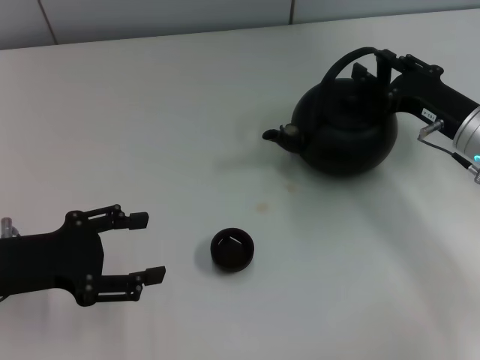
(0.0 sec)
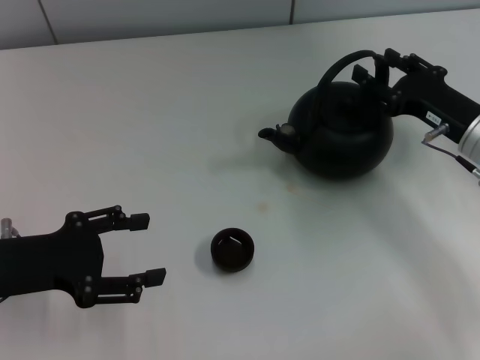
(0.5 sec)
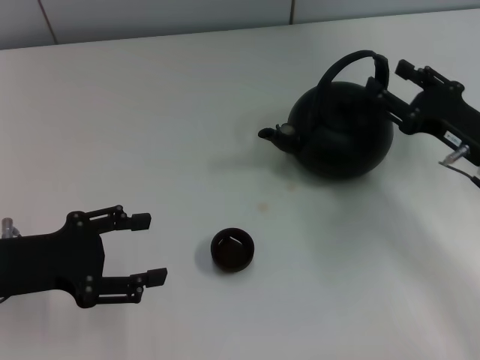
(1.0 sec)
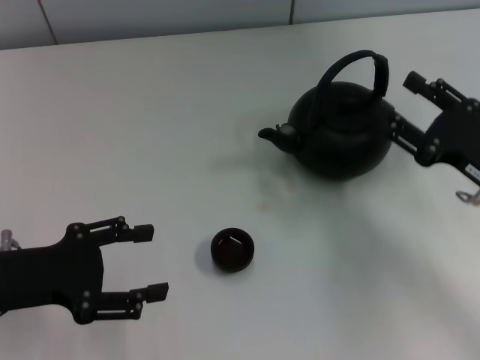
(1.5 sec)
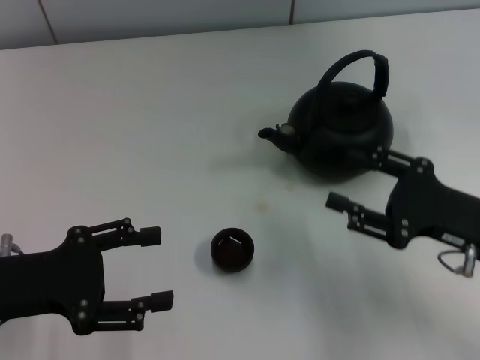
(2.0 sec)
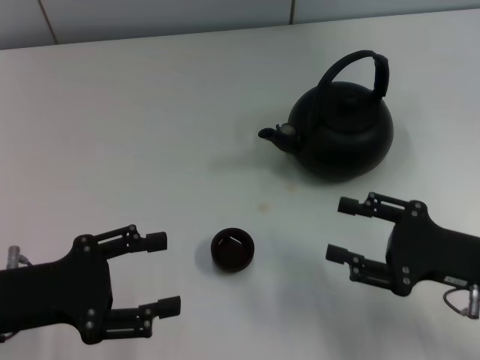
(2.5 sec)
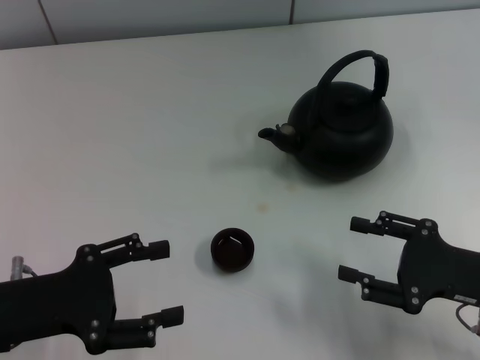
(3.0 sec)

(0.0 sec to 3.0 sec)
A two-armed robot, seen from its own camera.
Task of the whole recording: Grasp the handle of the teapot with one hand and pour tea into the teacup.
0.0 sec - 1.5 sec: The right gripper moves backward, about 10 cm.
1.5 sec - 3.0 sec: The right gripper shifts roughly 5 cm backward.

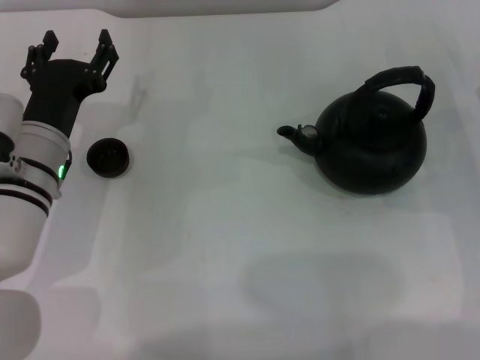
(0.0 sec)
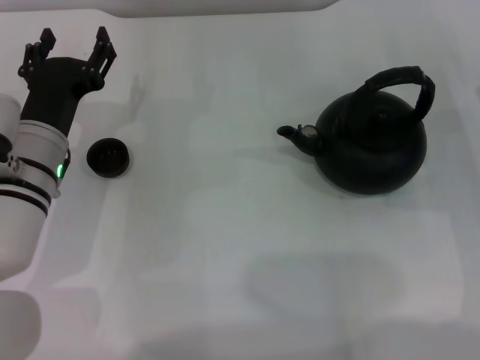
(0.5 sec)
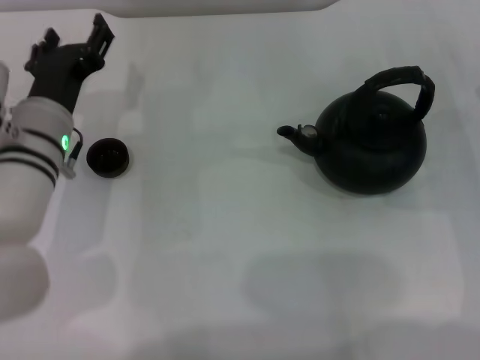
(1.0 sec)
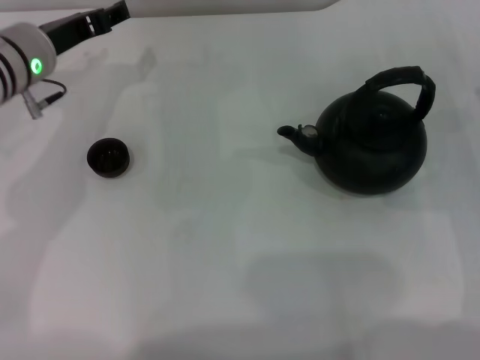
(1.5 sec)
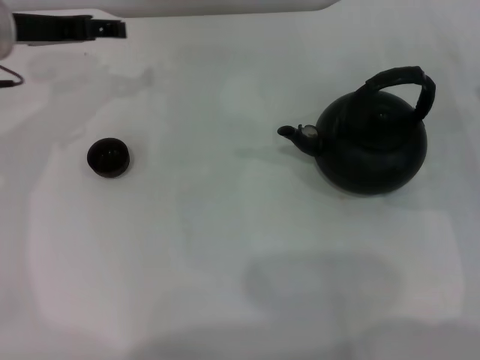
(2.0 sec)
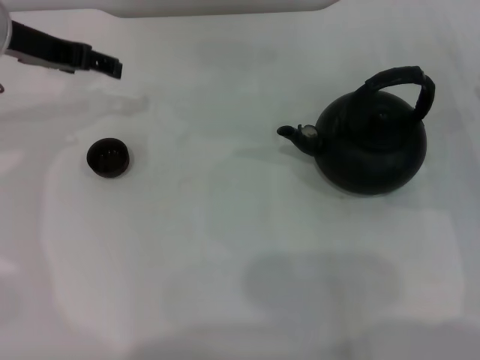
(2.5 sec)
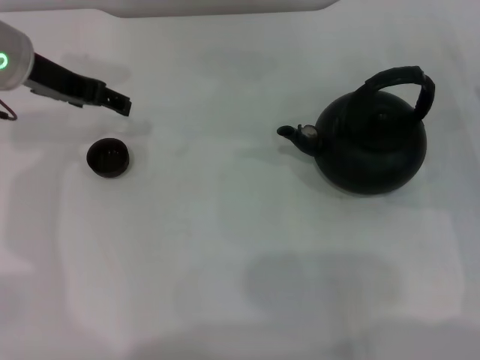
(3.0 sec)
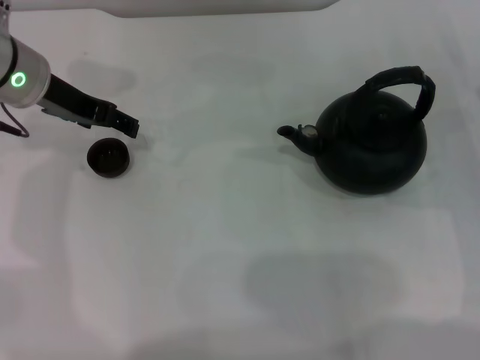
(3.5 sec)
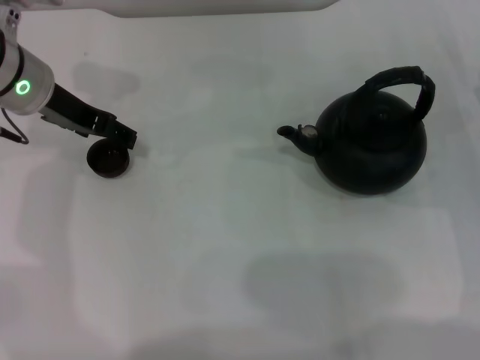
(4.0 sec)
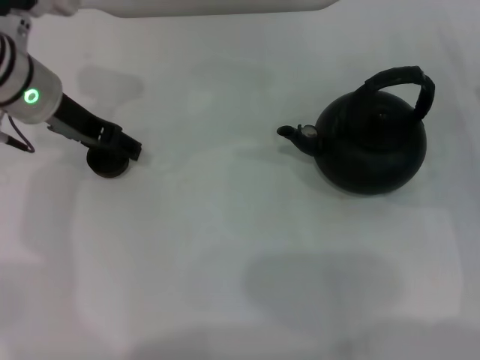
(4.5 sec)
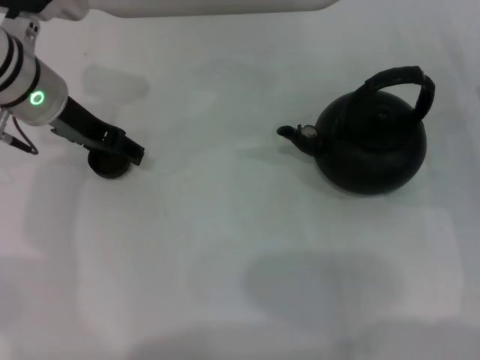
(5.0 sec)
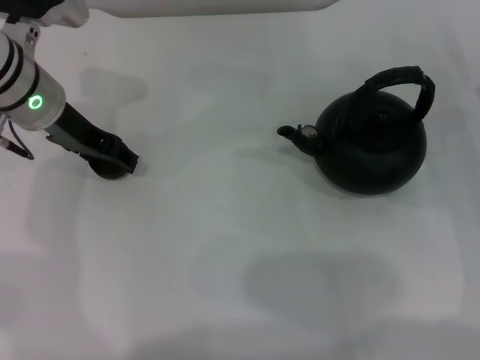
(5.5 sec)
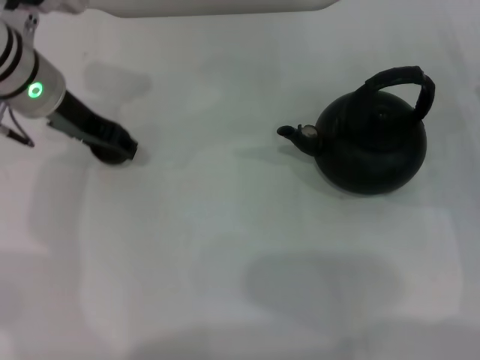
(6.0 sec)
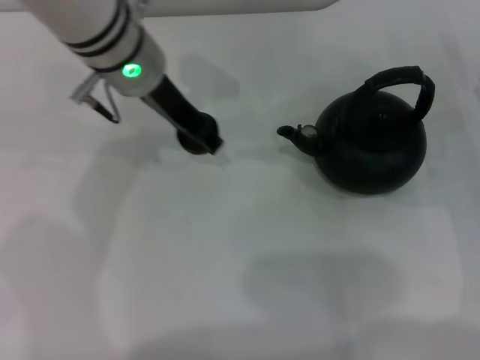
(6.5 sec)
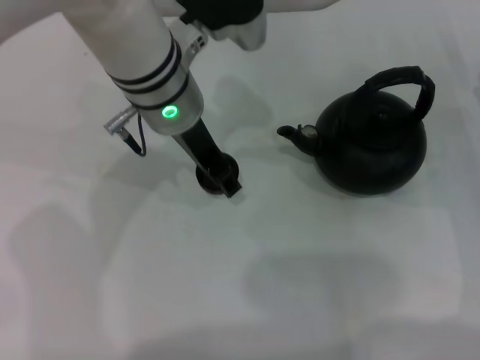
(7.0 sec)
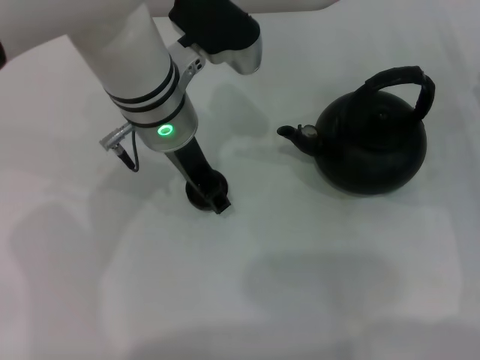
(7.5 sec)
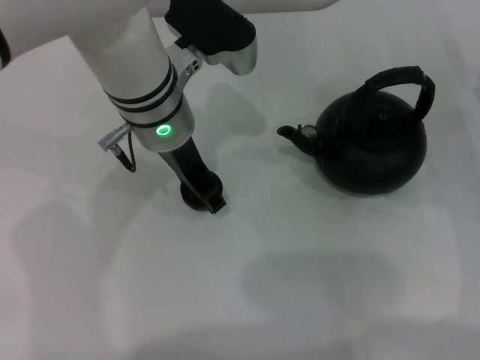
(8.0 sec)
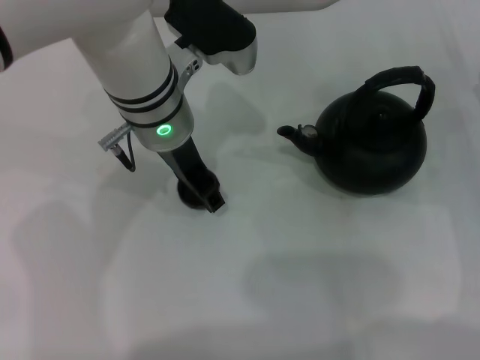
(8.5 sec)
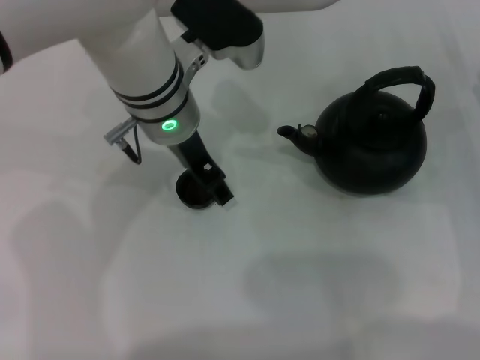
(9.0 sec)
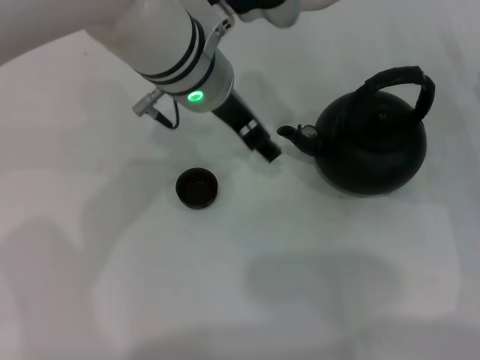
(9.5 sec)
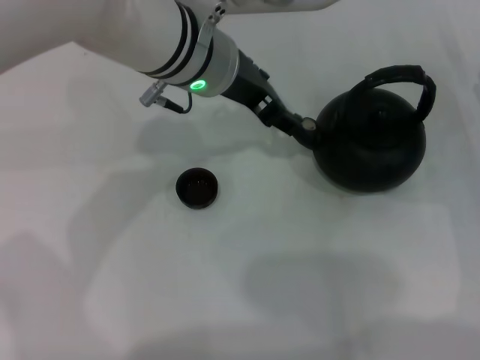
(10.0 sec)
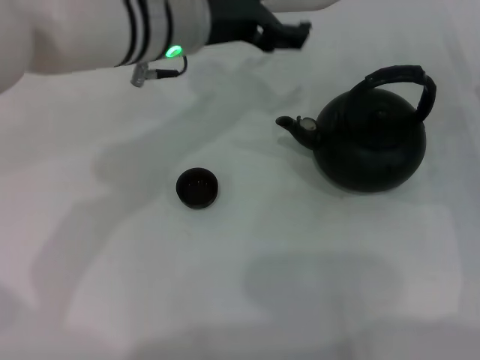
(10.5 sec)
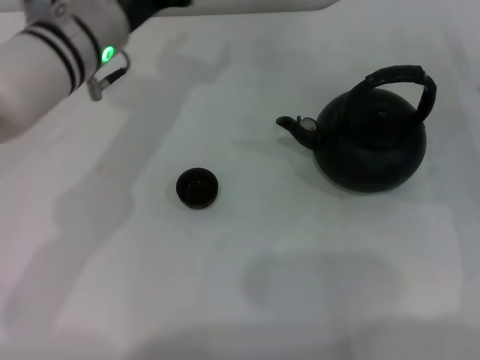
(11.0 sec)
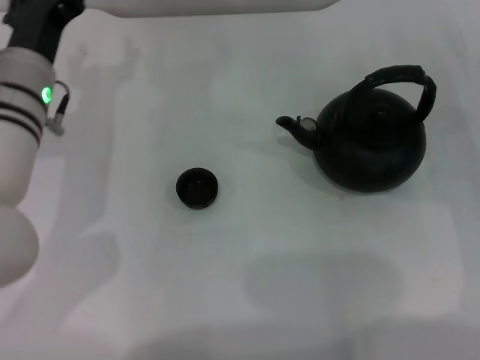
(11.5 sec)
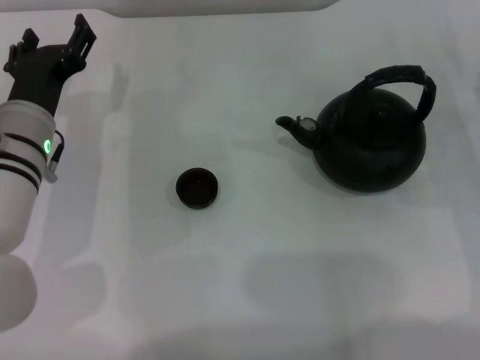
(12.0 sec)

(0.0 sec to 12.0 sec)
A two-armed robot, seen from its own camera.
Task of the whole recording: Grasp the handle of the teapot with one hand and pour tea into the teacup.
Step, 0.0 sec - 5.5 sec: Pick up the teacup with the left gripper.
Step, 6.5 sec - 9.5 sec: Place the teacup in the center of view with the left gripper.
0.0 sec - 2.0 sec: The left gripper shifts some 15 cm upward and forward.
4.0 sec - 6.0 sec: The left gripper closes up.
6.0 sec - 8.0 sec: The left gripper heads to the right, covering about 15 cm.
8.0 sec - 10.0 sec: The left gripper opens.
10.0 sec - 12.0 sec: The left gripper is displaced to the left and downward by about 20 cm.

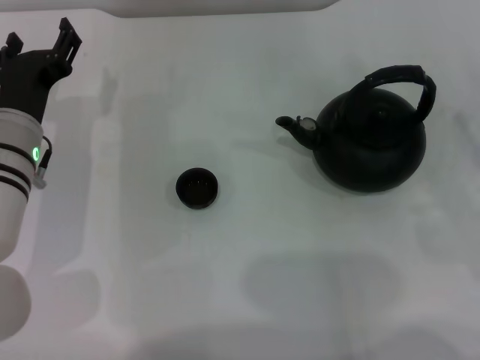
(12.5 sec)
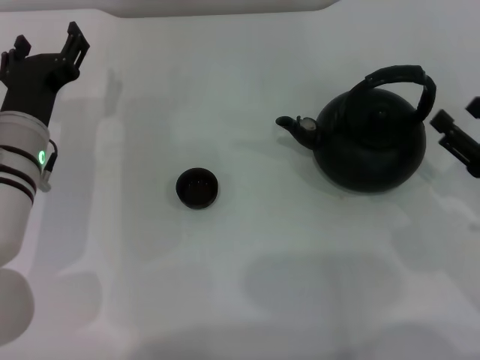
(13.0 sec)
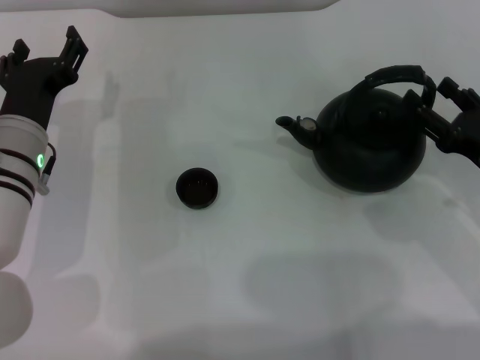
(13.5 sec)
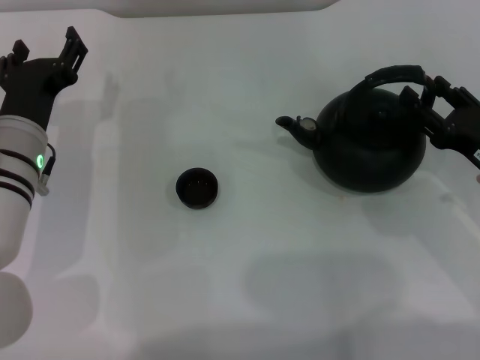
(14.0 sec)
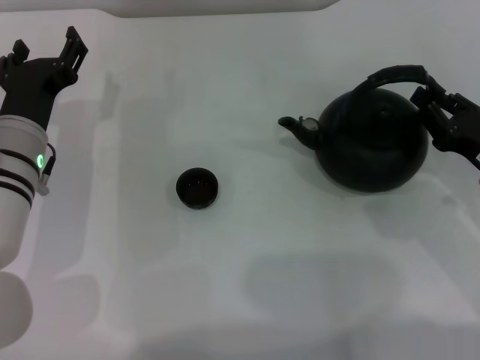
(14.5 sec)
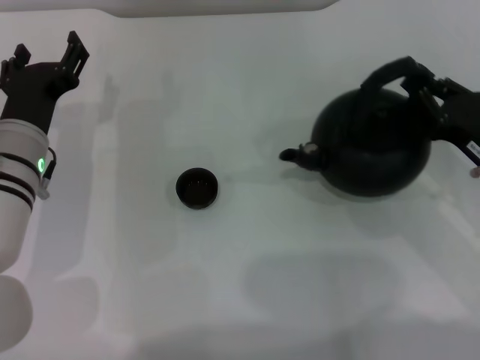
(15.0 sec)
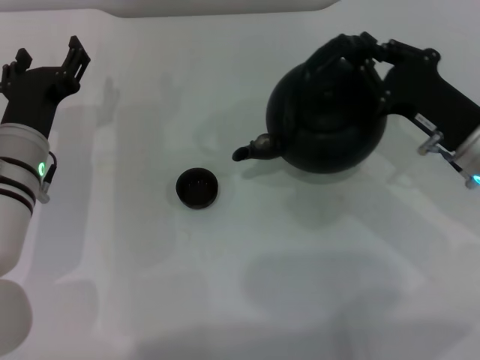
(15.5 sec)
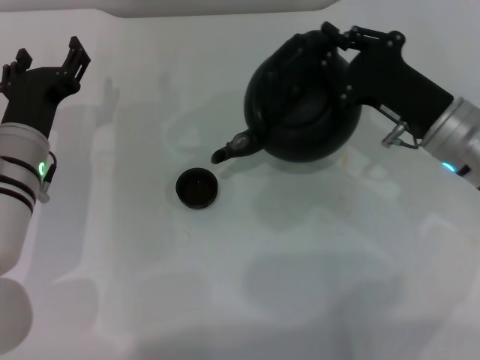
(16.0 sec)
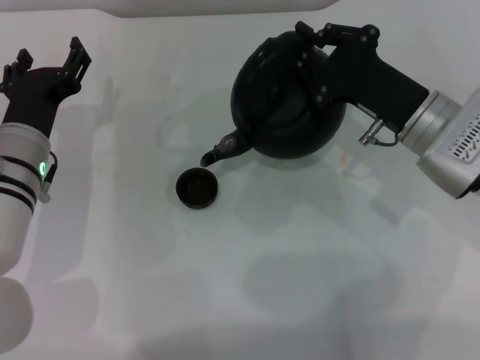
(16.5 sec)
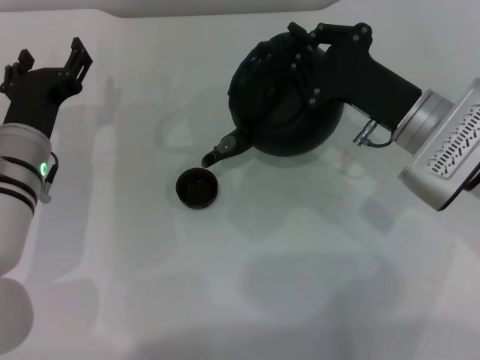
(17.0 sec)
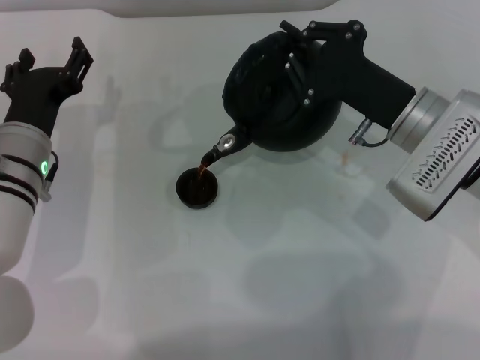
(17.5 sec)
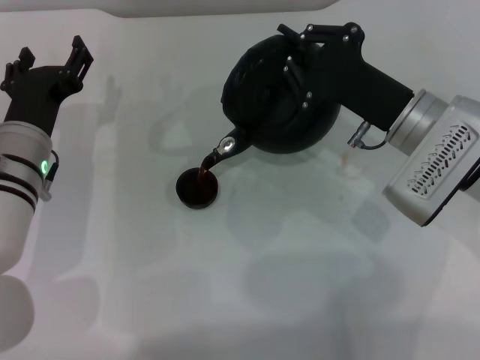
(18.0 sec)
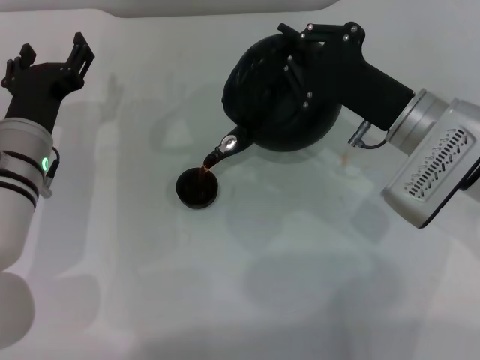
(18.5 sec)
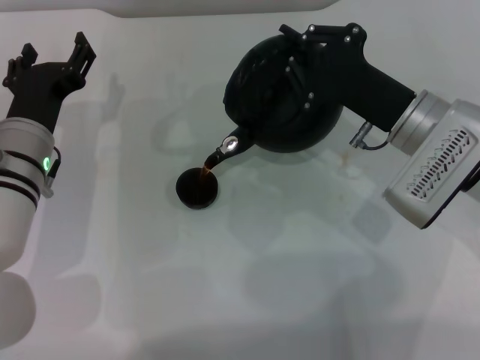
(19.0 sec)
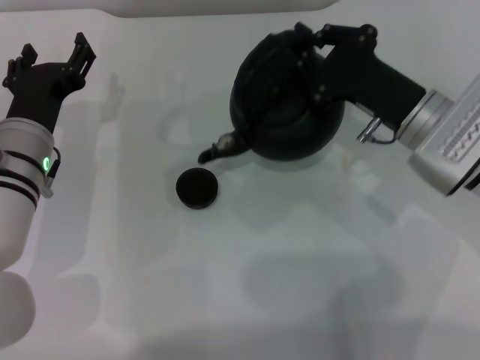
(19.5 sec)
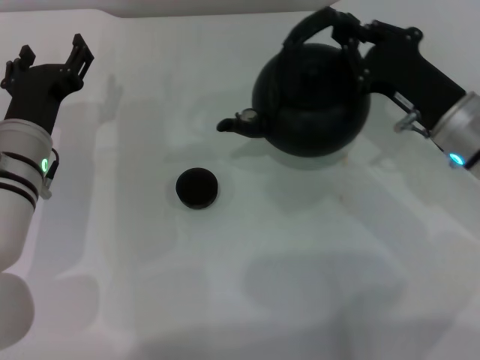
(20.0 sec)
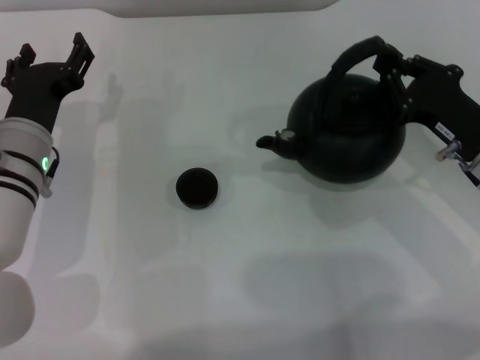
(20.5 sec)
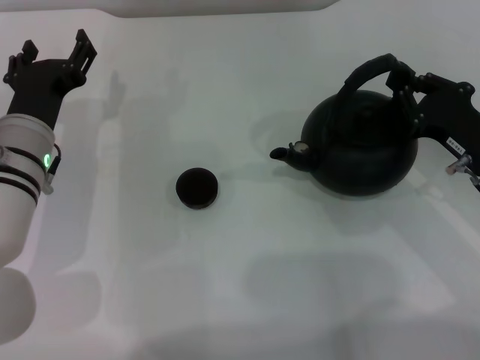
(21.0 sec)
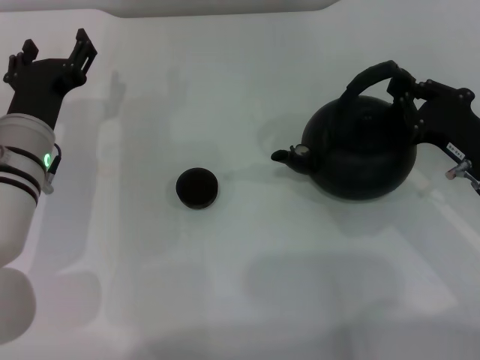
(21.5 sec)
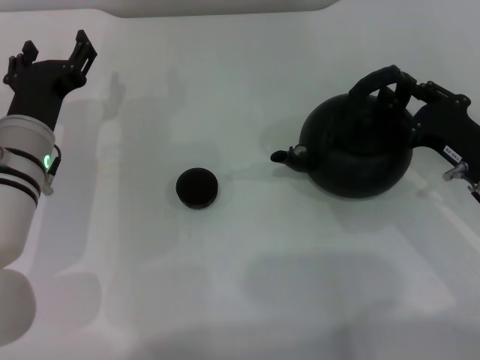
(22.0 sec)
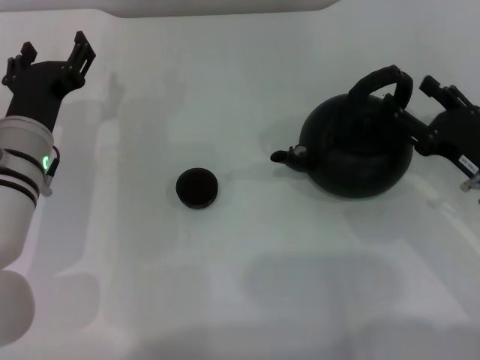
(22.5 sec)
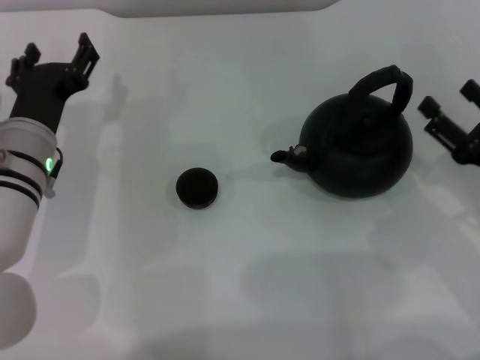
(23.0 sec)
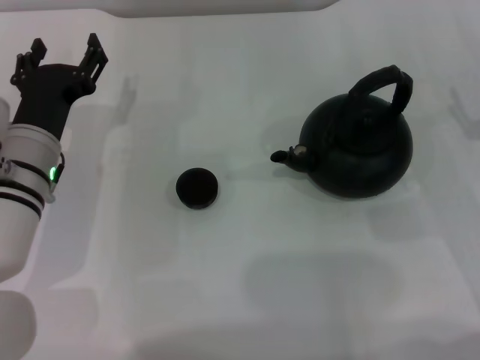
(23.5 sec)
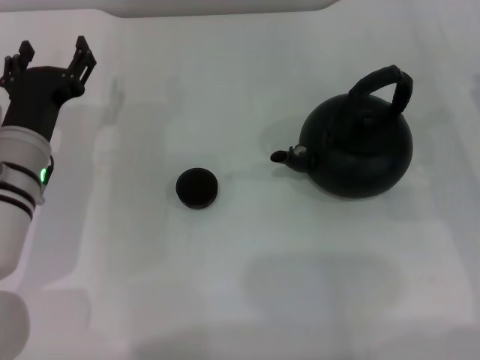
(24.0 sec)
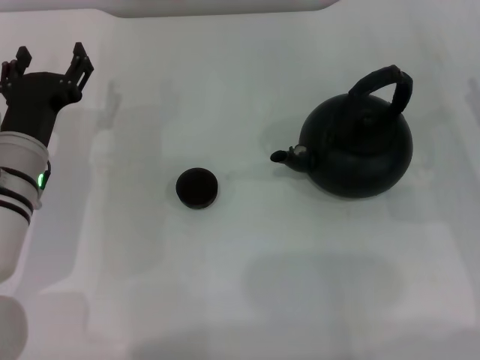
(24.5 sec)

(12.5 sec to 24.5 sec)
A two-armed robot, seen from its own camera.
Task of the whole recording: Grasp the handle of the teapot with one hand and pour tea into the teacup.
Step, 12.5 sec - 15.0 sec: Pick up the teapot with the right gripper.
Step, 15.5 sec - 19.5 sec: Pour tea into the teacup with the right gripper.
Step, 20.0 sec - 22.5 sec: Put down the teapot with the right gripper.
12.5 sec - 14.5 sec: The right gripper changes place by roughly 5 cm, and closes its fingers.
14.5 sec - 16.5 sec: The right gripper is displaced to the left and forward by roughly 10 cm, and closes.
16.5 sec - 18.5 sec: There are only small adjustments of the grippers.
18.5 sec - 20.5 sec: The right gripper travels to the right by about 10 cm.
20.5 sec - 22.5 sec: The right gripper opens.
22.5 sec - 24.5 sec: The right gripper shifts some 5 cm to the right.
